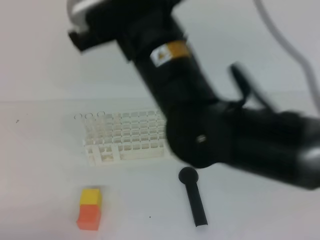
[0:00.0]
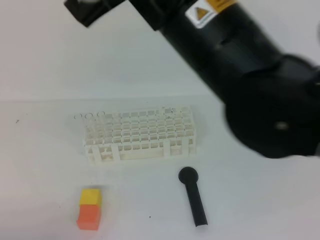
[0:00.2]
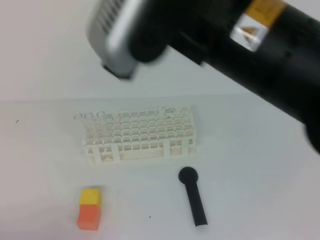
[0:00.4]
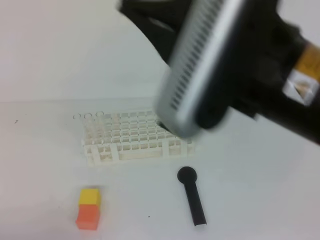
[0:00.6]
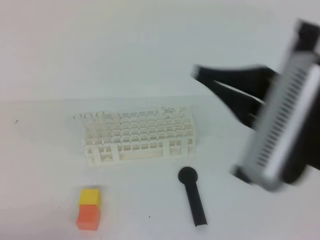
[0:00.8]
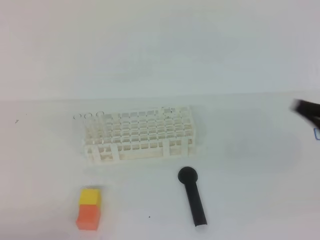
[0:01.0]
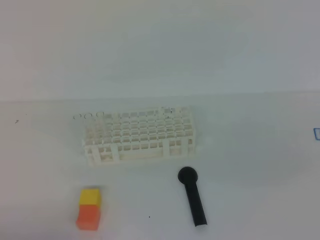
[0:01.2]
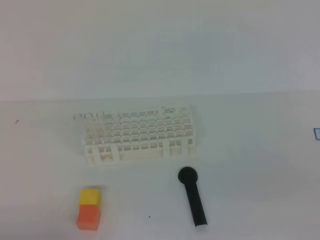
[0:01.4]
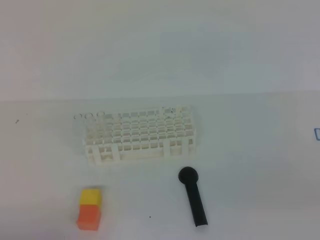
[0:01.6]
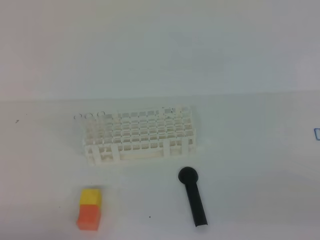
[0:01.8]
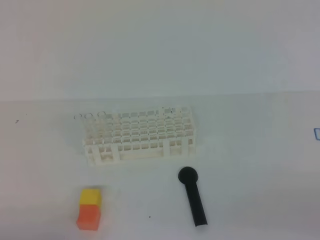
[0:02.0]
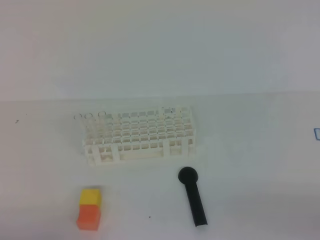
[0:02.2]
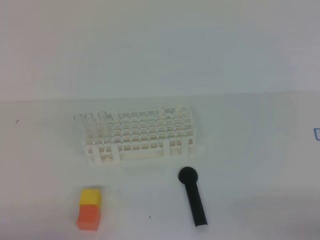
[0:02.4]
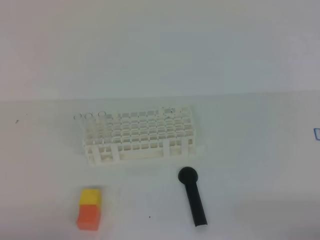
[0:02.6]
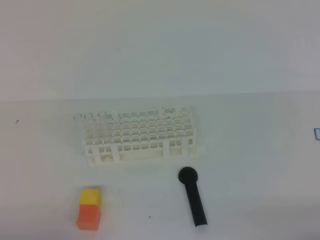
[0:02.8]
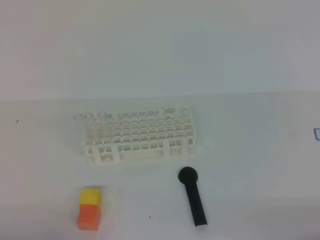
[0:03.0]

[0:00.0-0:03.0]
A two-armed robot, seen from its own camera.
0:00.0 to 0:01.6: The right gripper travels to the right and backward by some 40 cm.

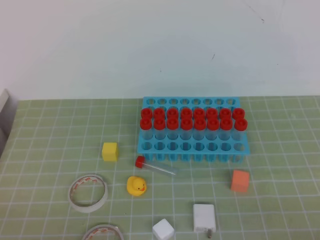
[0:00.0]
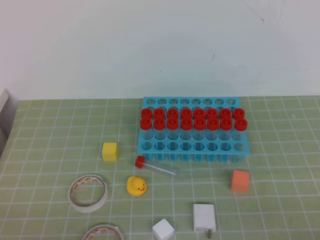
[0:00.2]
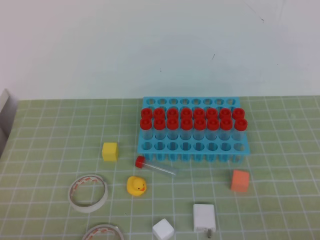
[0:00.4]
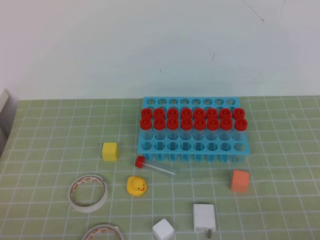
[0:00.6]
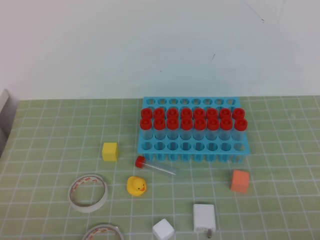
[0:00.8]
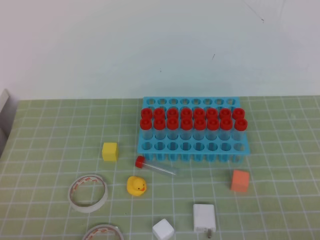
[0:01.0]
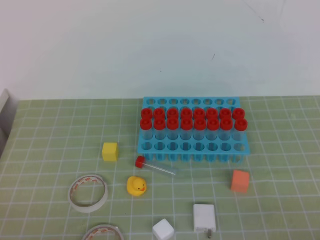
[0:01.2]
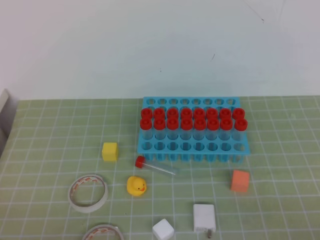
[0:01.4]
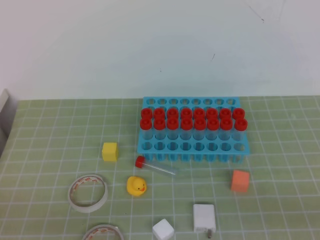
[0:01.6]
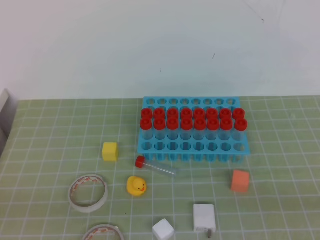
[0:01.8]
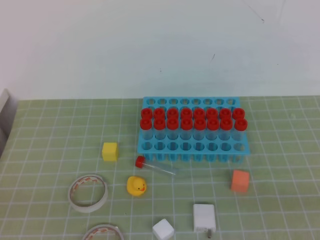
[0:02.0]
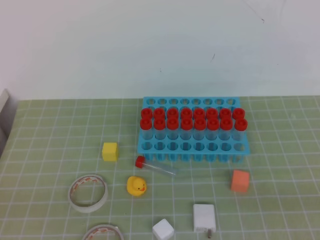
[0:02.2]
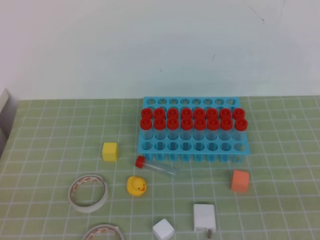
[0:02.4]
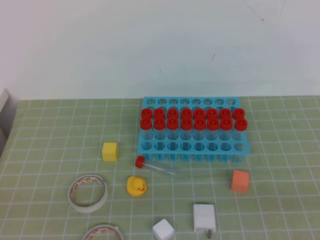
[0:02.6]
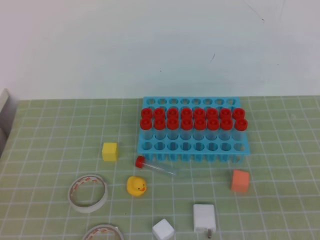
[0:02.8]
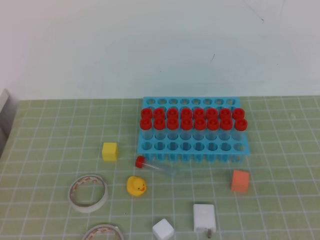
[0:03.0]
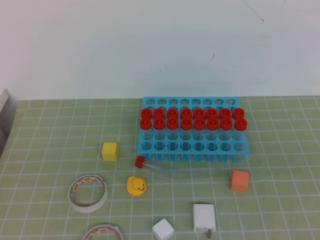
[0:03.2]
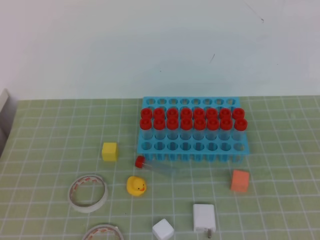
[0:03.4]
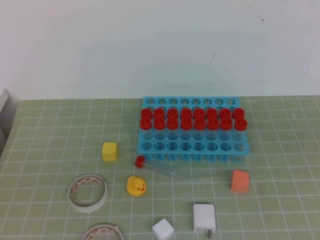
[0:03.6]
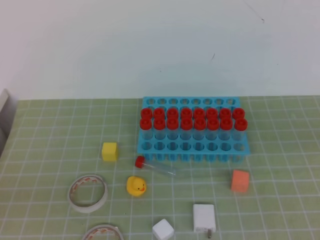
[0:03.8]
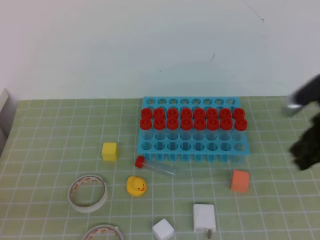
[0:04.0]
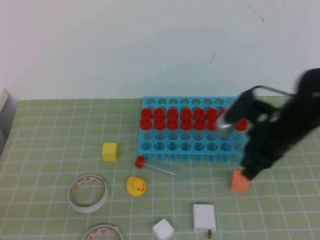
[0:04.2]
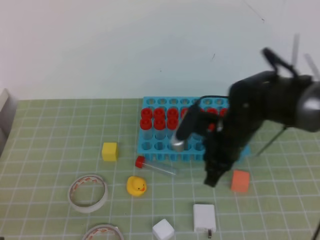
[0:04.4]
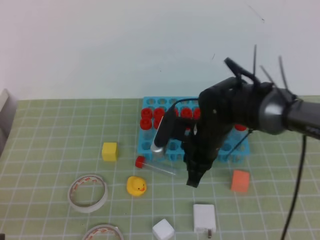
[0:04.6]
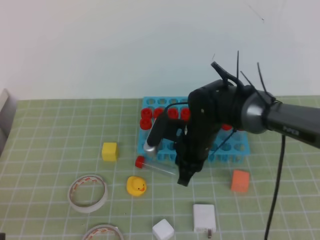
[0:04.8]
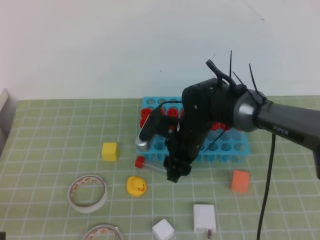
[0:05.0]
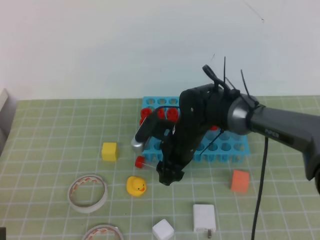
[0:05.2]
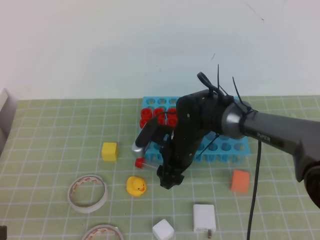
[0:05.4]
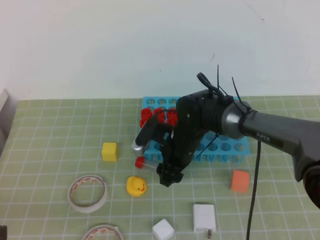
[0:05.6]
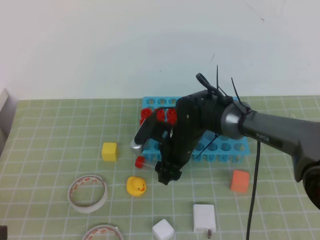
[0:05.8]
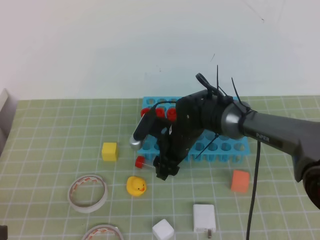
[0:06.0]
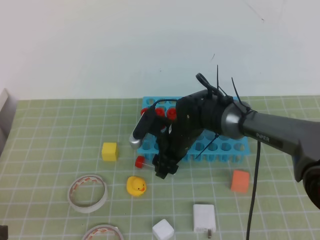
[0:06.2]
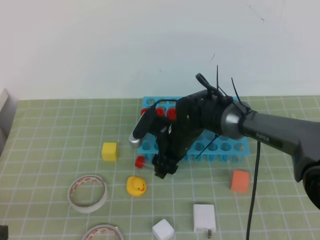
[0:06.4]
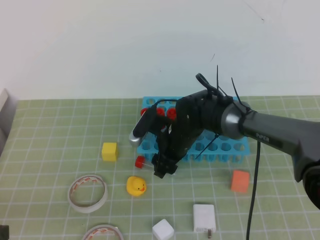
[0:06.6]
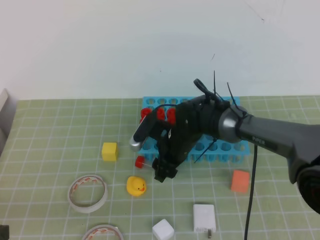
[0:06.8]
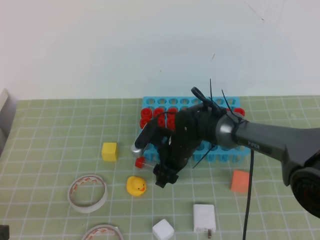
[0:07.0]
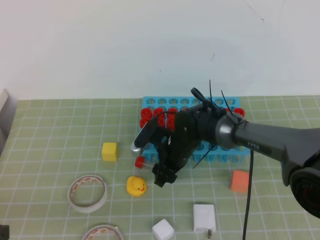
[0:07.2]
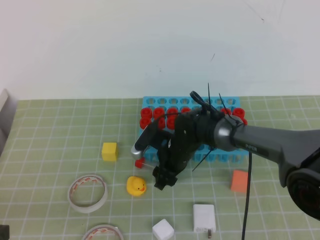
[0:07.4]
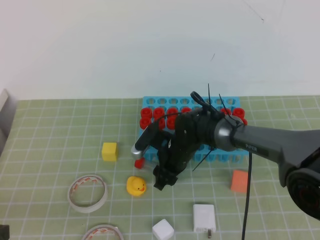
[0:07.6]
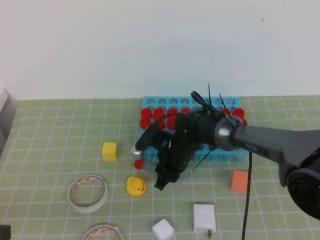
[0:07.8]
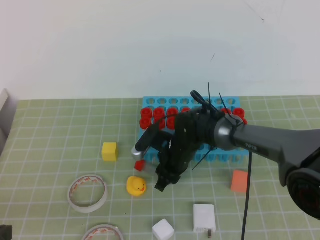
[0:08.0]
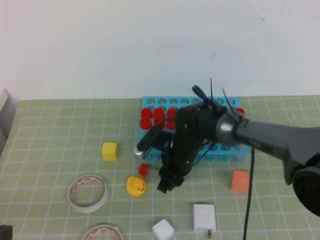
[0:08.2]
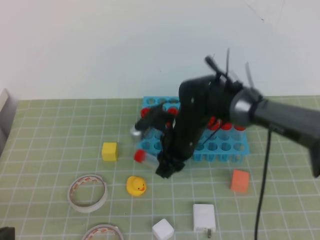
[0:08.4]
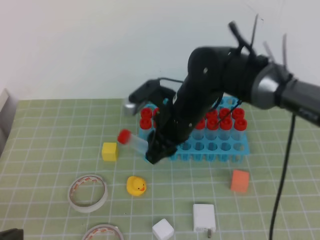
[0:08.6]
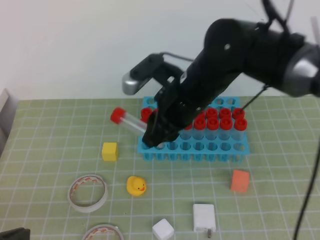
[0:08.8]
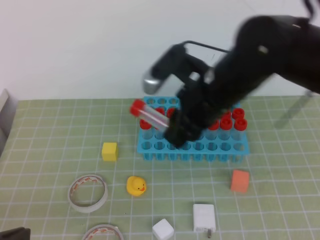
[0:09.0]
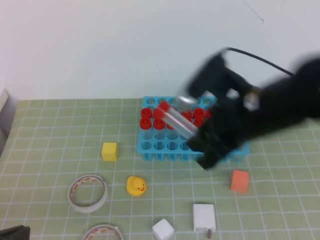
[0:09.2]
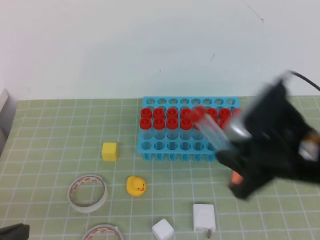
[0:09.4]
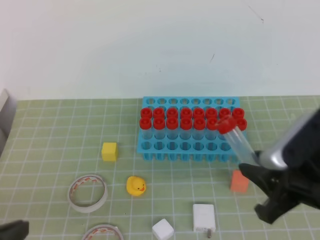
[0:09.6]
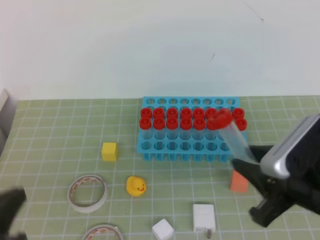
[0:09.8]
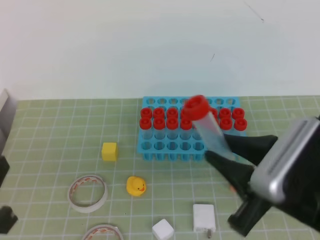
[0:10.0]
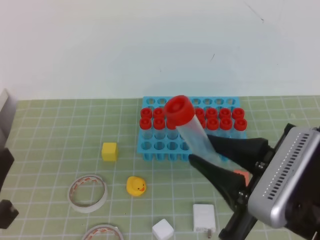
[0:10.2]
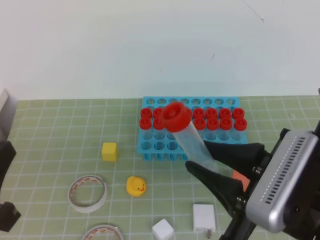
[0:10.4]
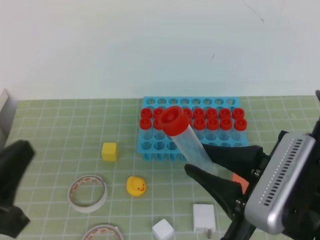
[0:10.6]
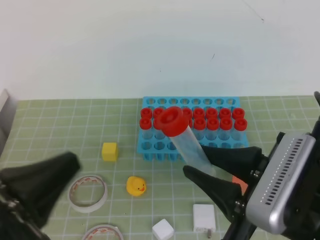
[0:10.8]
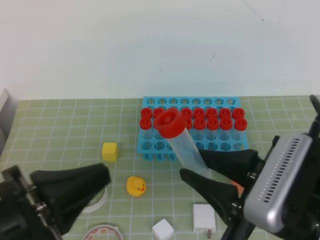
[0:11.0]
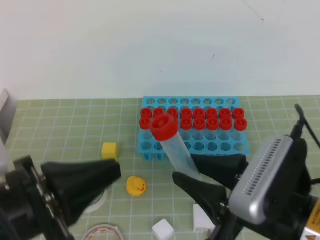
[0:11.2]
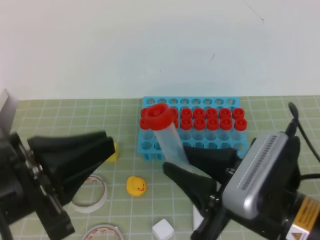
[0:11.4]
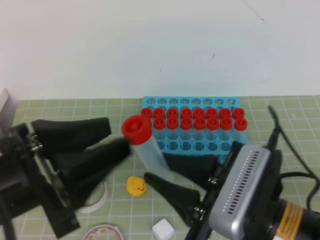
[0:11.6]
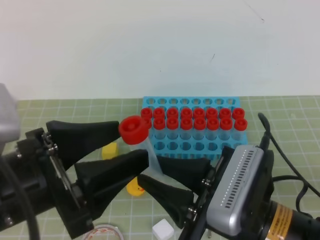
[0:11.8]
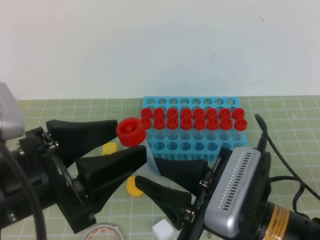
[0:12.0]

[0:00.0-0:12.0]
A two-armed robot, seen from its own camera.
0:03.0 to 0:04.4: The right gripper shifts about 35 cm forward and to the left; the left gripper goes roughly 10 cm downward and forward.
0:04.4 to 0:06.0: The right gripper is displaced to the left, downward and forward by approximately 15 cm, and opens up.
0:06.0 to 0:07.6: The grippers stay close to where they were, moving slightly.
0:07.6 to 0:09.0: The right gripper goes roughly 20 cm upward.
0:09.0 to 0:10.4: The right gripper goes about 20 cm backward and to the right. Meanwhile the left gripper shifts by approximately 5 cm.
0:10.4 to 0:12.0: The left gripper shifts about 5 cm to the right, and opens. Meanwhile the right gripper moves about 5 cm.

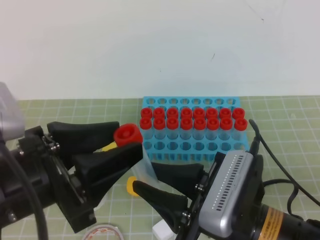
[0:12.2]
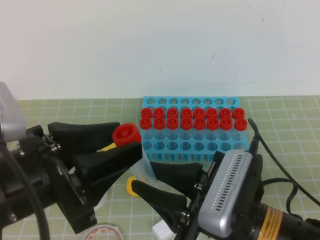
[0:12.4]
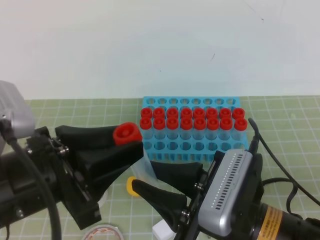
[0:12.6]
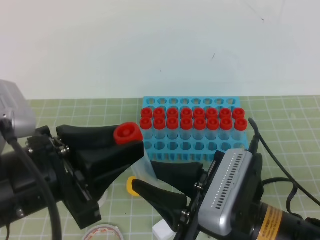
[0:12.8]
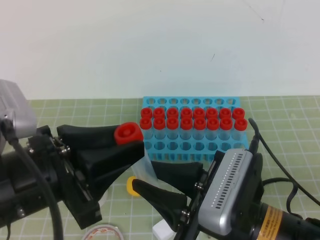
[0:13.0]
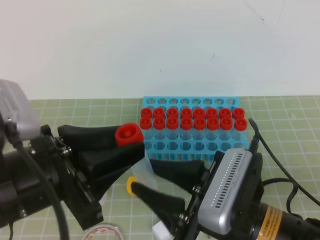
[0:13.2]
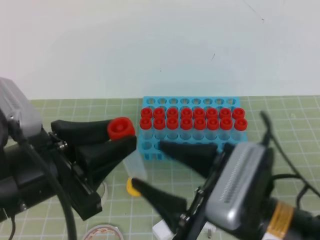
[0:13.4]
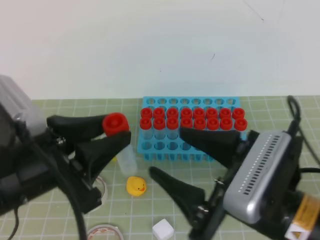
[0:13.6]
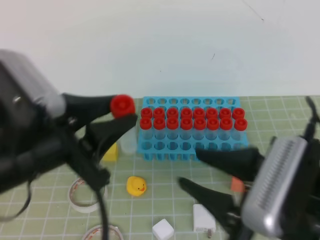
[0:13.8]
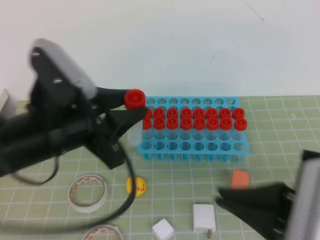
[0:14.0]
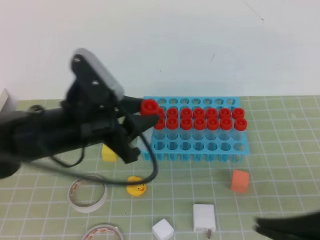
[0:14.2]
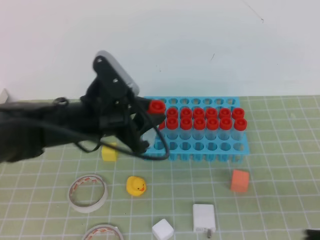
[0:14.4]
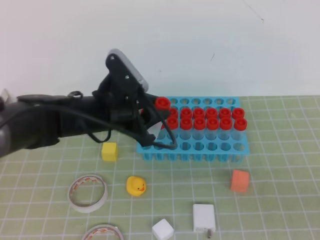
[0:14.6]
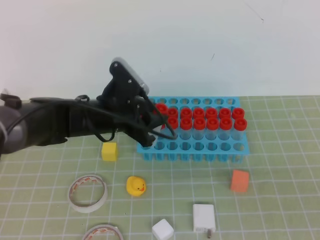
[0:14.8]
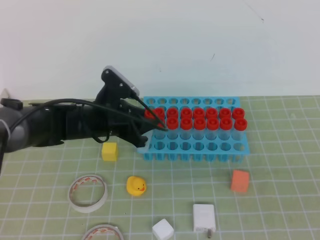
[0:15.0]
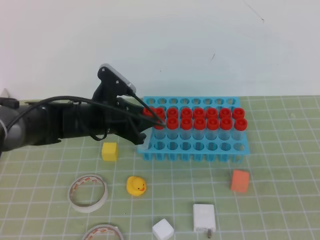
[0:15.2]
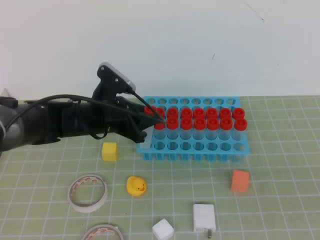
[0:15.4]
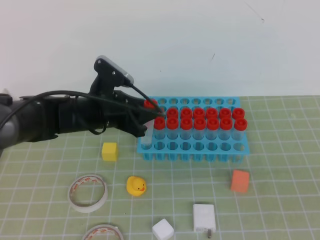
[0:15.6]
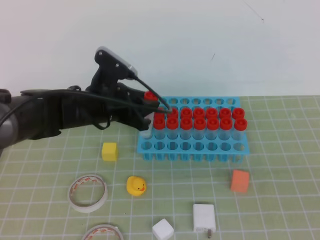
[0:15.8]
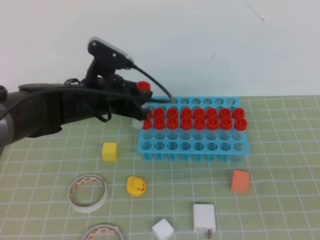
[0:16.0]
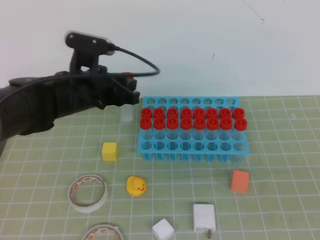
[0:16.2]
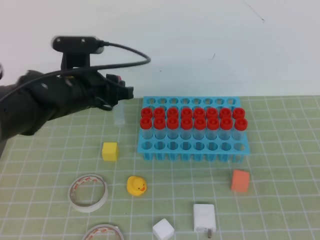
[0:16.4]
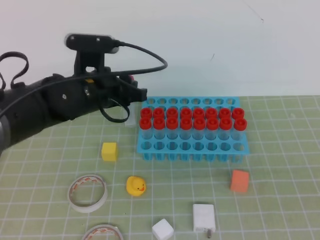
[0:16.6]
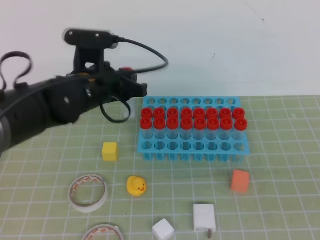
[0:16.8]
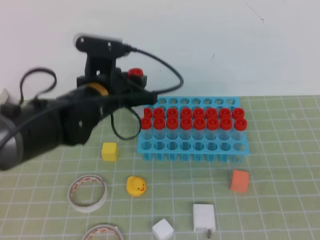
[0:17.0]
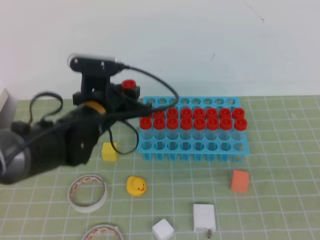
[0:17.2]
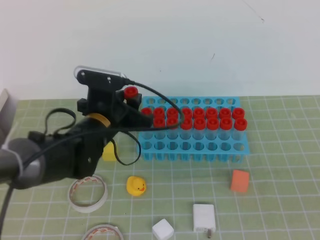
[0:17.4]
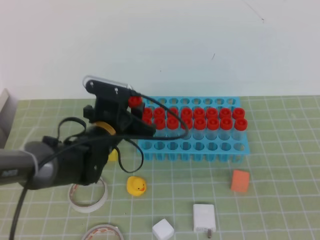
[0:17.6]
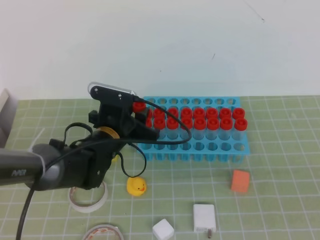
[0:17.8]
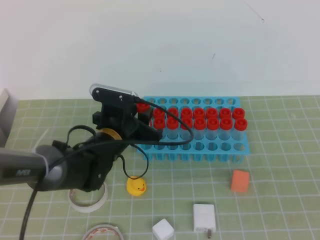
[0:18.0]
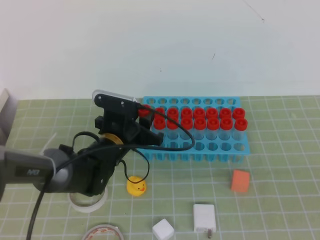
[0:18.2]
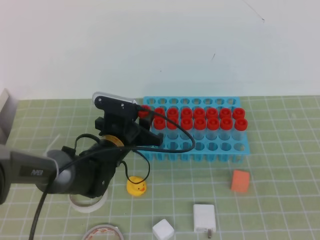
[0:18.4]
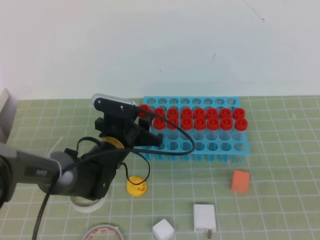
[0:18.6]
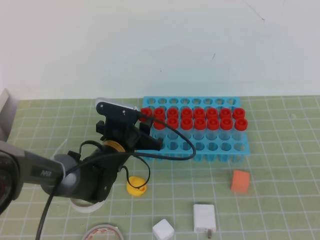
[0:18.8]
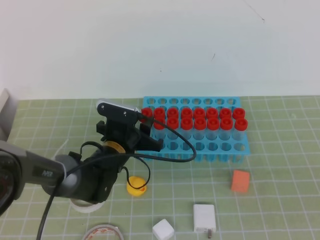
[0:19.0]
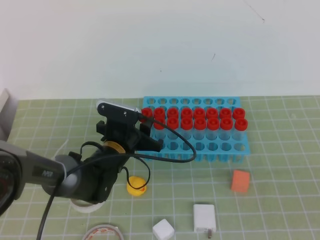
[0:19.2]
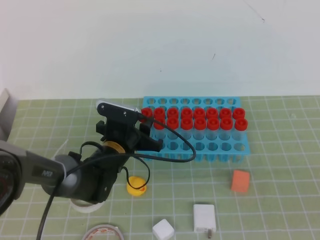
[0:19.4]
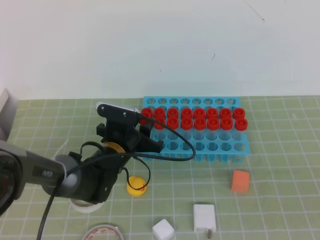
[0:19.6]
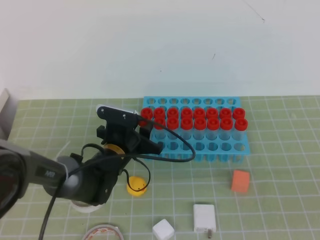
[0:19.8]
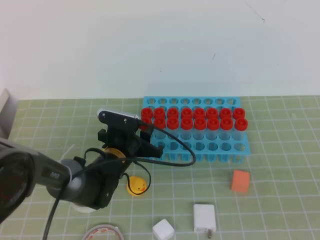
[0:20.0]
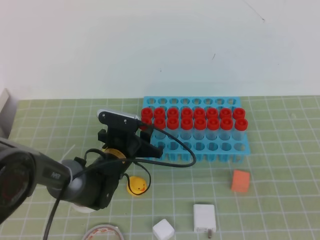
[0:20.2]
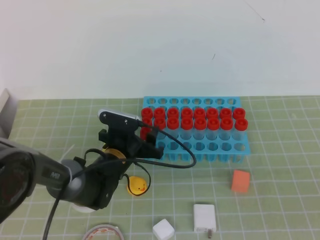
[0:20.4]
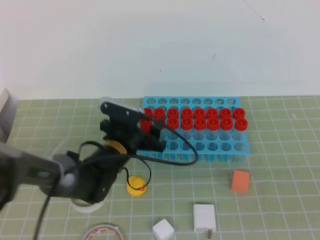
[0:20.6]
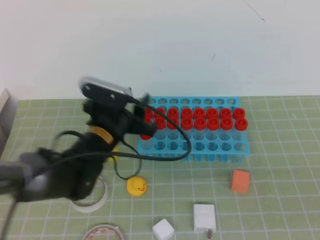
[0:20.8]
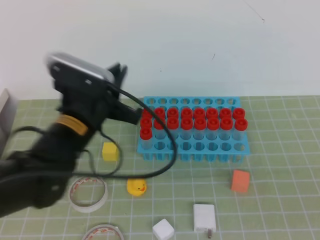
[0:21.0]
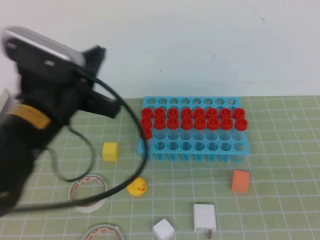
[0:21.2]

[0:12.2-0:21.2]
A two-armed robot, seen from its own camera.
0:12.2 to 0:13.8: The left gripper closes. The right gripper moves some 5 cm.
0:13.8 to 0:15.2: The left gripper shifts roughly 25 cm forward and downward. Meanwhile the right gripper shifts approximately 20 cm to the right, and closes its fingers.
0:15.2 to 0:16.6: The left gripper is displaced upward by some 10 cm.
0:16.6 to 0:18.2: The left gripper travels downward by roughly 10 cm.
0:18.2 to 0:19.8: There are only small adjustments of the grippers.
0:19.8 to 0:21.2: The left gripper travels upward and backward by some 25 cm, and closes its fingers.
